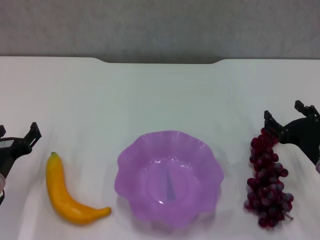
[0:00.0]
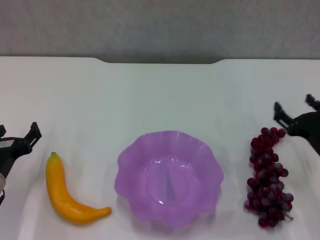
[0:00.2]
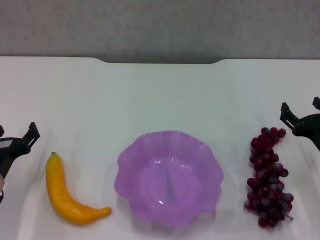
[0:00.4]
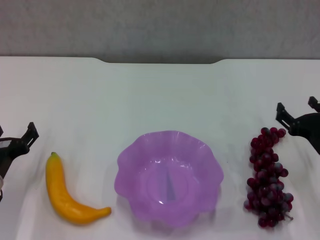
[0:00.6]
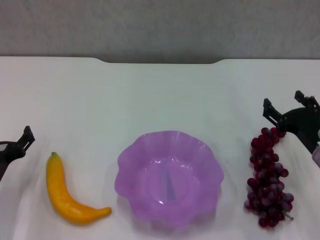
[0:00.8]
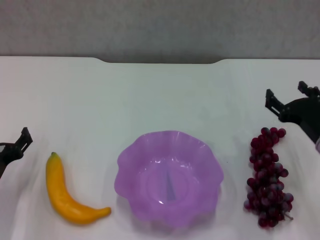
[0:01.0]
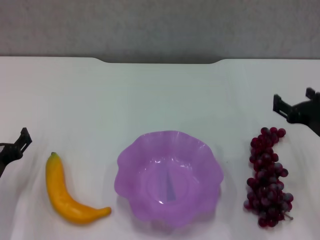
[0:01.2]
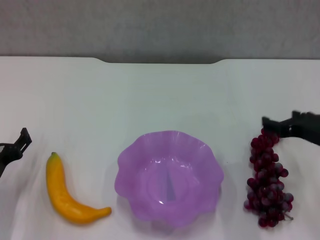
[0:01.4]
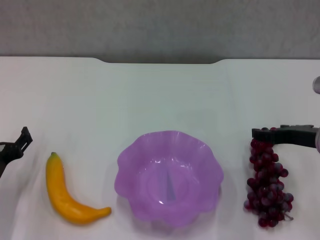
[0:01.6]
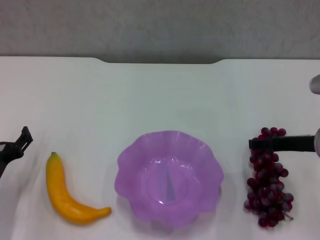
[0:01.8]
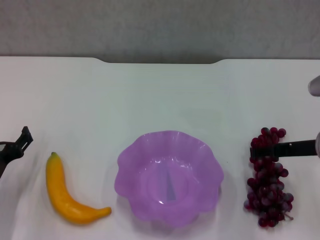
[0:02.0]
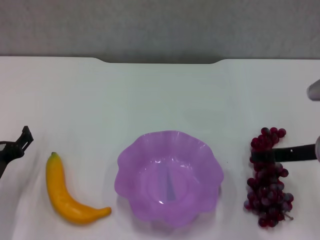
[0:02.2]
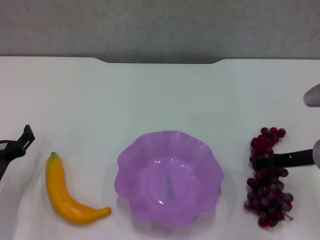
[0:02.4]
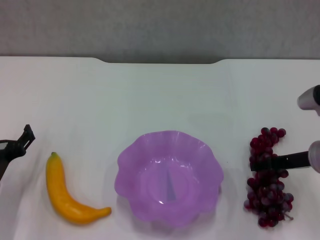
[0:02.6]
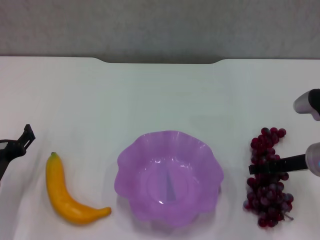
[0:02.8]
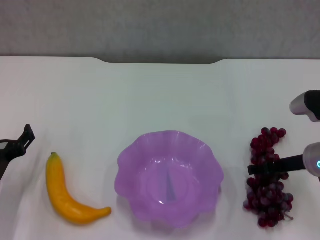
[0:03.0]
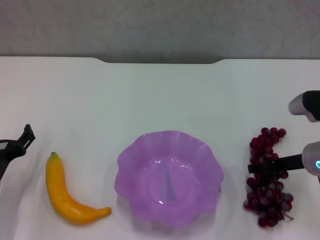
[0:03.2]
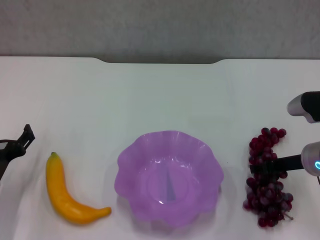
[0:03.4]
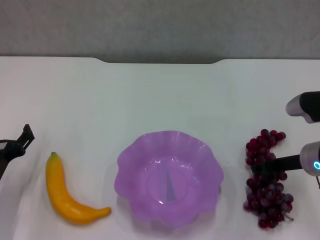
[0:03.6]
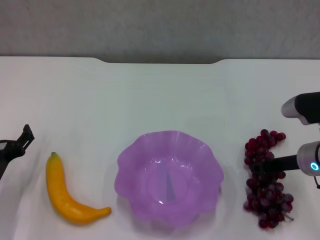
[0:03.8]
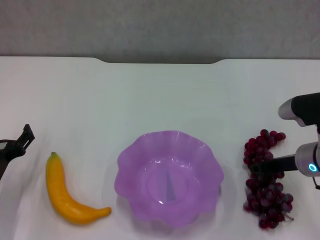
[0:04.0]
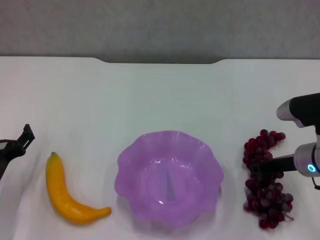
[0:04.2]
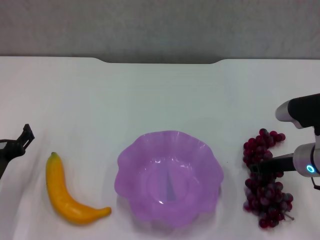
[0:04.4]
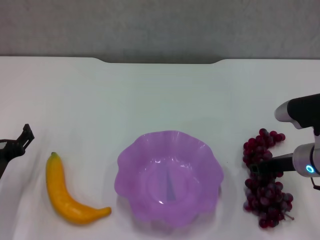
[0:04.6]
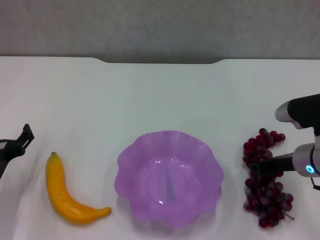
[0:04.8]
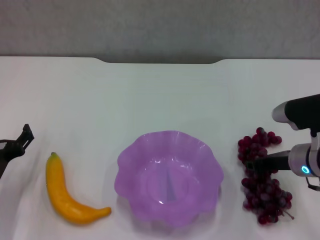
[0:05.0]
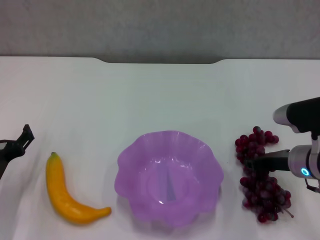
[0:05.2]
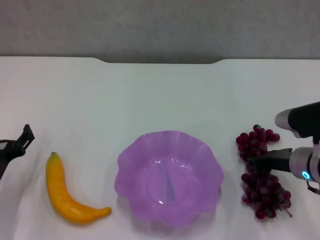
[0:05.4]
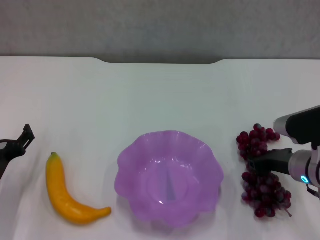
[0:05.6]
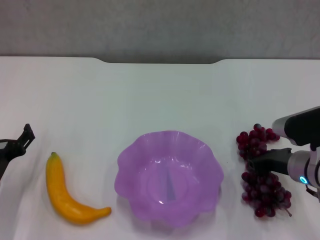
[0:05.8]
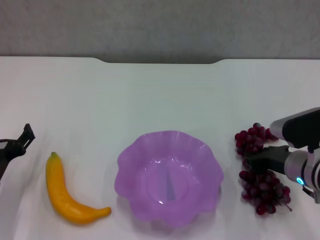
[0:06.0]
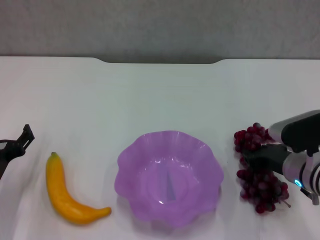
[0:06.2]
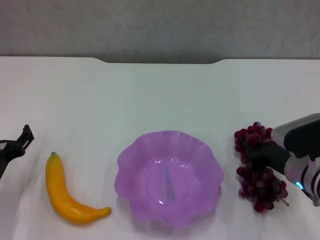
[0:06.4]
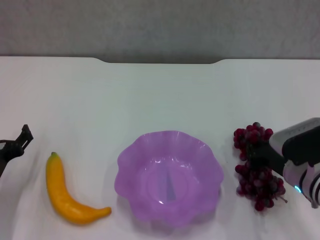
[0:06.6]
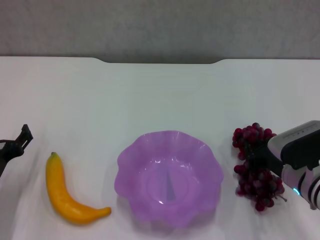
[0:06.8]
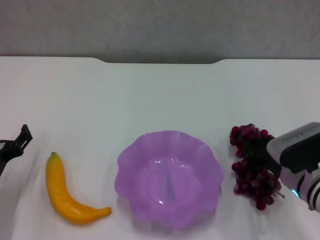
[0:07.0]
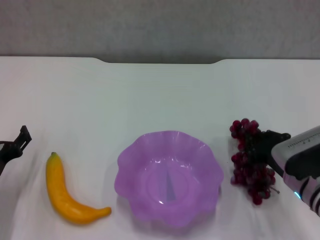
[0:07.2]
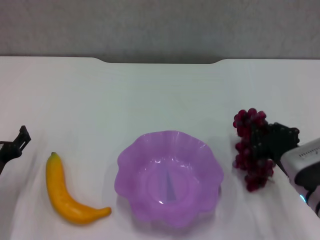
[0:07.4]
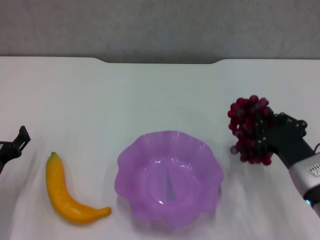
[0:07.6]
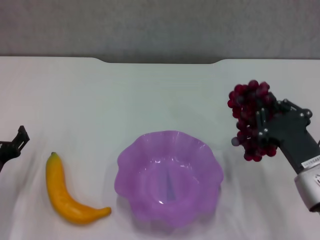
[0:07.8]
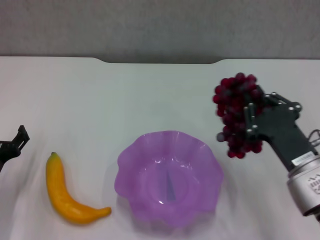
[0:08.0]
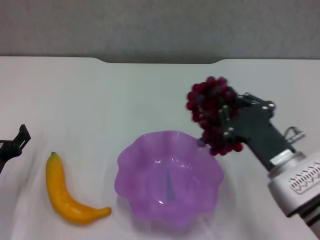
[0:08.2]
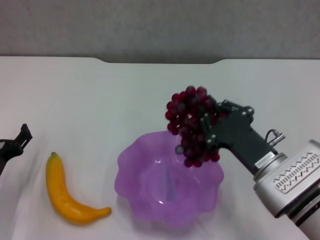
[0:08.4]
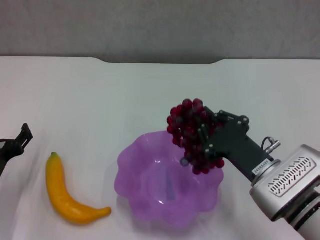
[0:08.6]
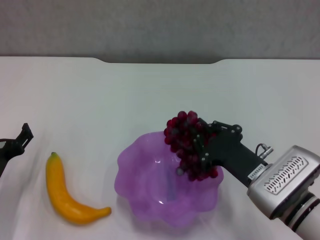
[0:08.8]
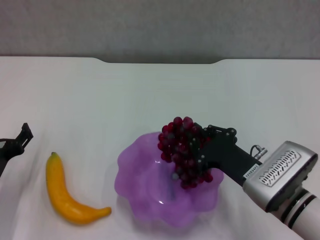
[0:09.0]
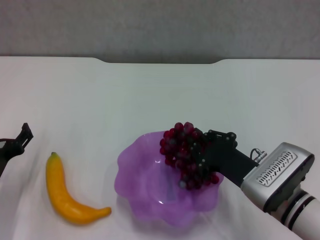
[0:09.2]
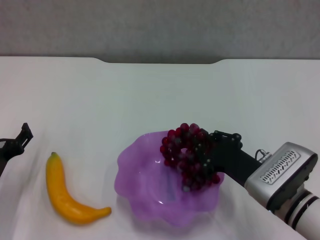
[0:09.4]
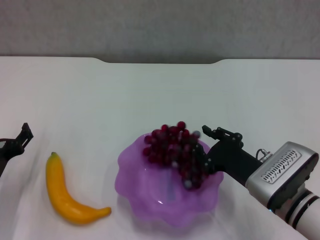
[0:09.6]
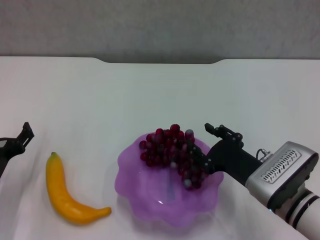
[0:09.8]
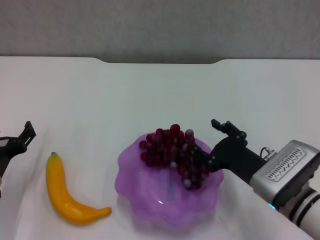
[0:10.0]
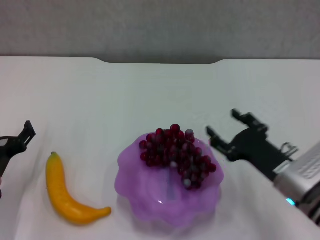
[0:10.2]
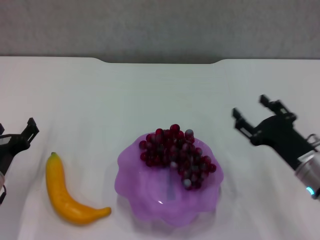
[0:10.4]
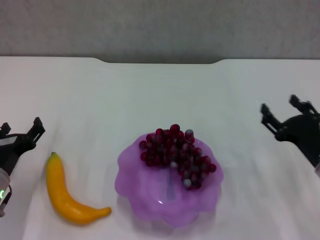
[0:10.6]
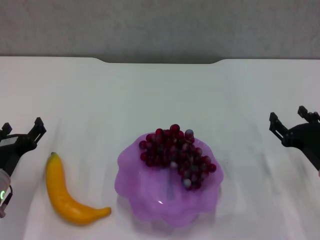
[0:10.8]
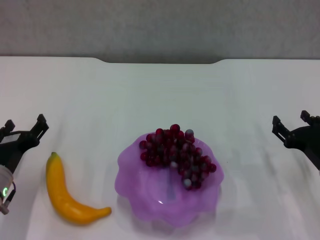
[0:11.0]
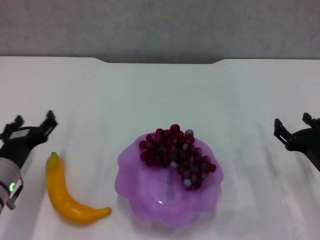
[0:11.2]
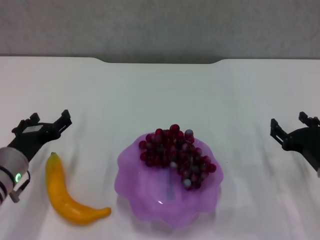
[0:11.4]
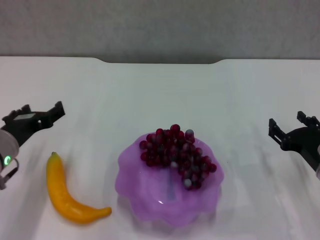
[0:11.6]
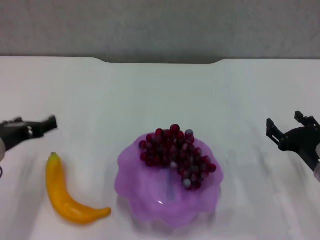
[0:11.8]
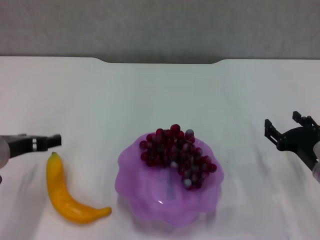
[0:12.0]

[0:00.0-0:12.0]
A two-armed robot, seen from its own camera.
Step, 0:00.0 to 0:04.2: Grasp the grape with right gripper.
Step, 0:04.4 to 0:10.0: Place the grape in the purple plate with right gripper.
0:00.0 to 0:01.6: The right gripper moves upward, approximately 10 cm.
0:01.6 to 0:03.0: The grippers make only small movements.
0:03.0 to 0:04.4: The right gripper closes up.
0:04.4 to 0:06.0: The grippers make only small movements.
0:06.0 to 0:07.6: The right gripper travels backward by approximately 5 cm.
0:07.6 to 0:09.0: The right gripper shifts some 5 cm to the left.
0:09.0 to 0:10.4: The right gripper shifts some 5 cm to the right, and opens its fingers.
0:10.4 to 0:12.0: The left gripper heads upward, covering about 10 cm.

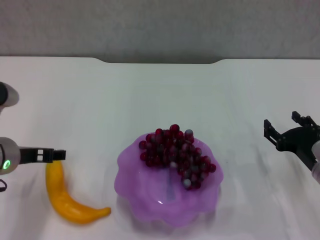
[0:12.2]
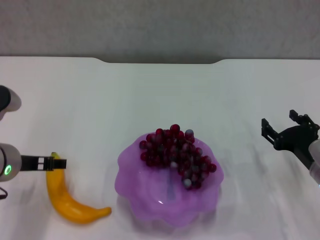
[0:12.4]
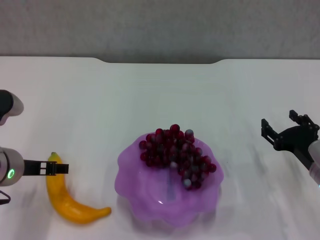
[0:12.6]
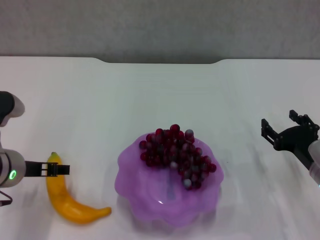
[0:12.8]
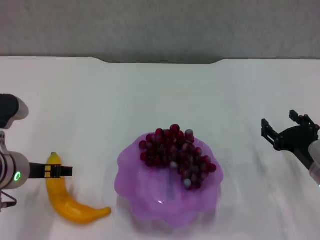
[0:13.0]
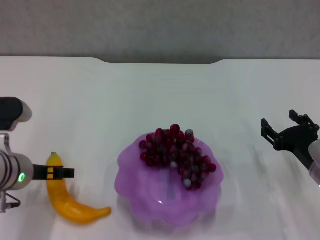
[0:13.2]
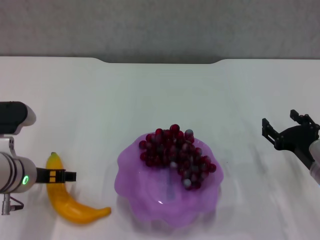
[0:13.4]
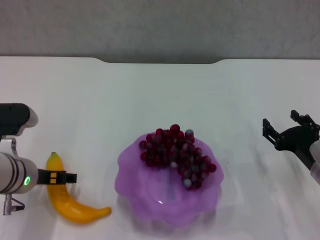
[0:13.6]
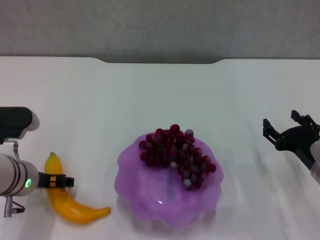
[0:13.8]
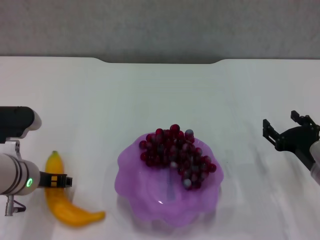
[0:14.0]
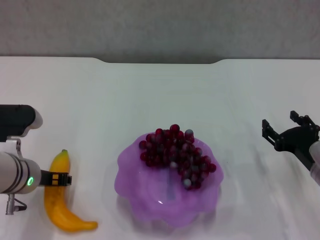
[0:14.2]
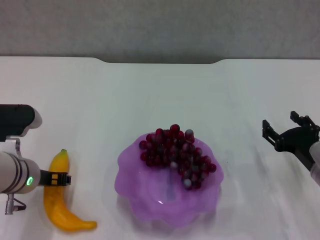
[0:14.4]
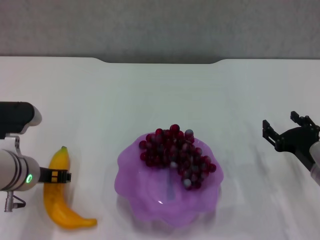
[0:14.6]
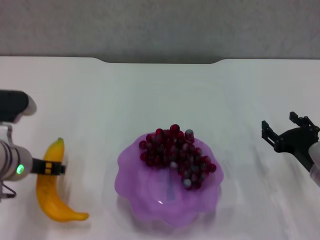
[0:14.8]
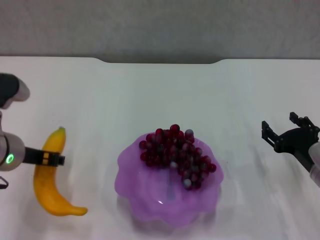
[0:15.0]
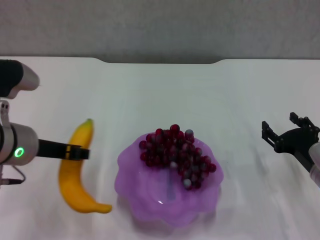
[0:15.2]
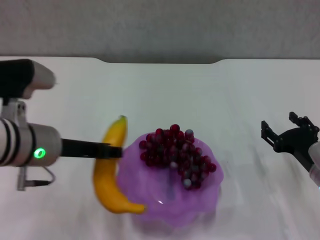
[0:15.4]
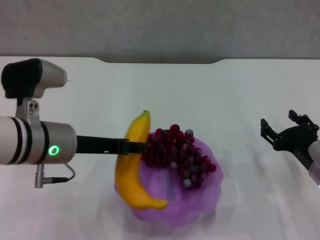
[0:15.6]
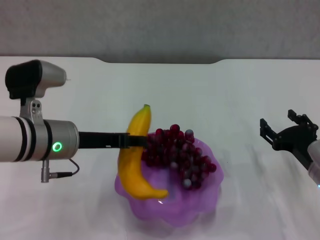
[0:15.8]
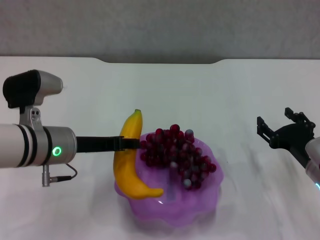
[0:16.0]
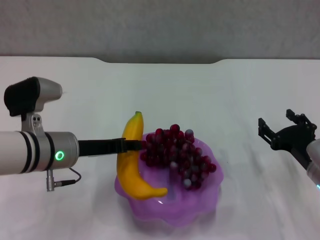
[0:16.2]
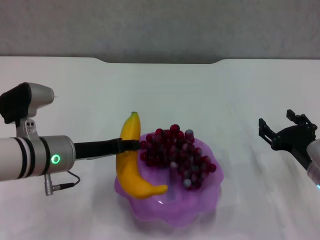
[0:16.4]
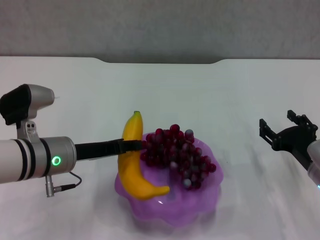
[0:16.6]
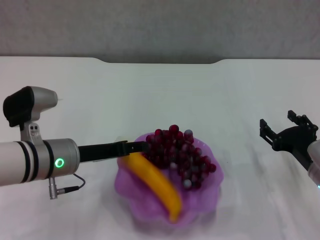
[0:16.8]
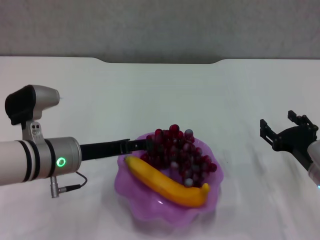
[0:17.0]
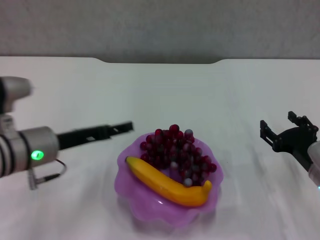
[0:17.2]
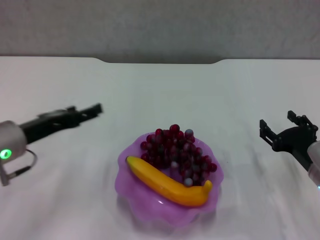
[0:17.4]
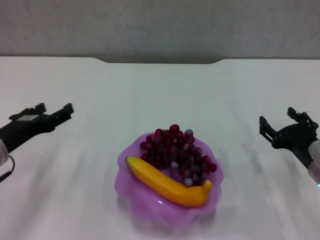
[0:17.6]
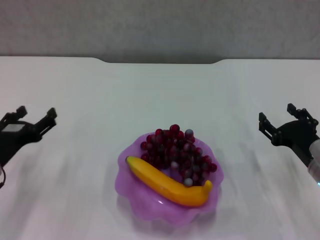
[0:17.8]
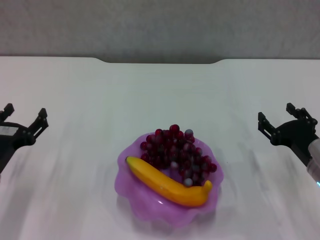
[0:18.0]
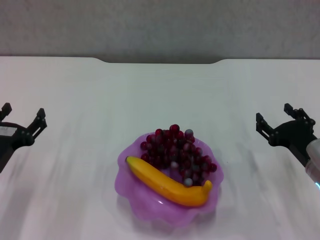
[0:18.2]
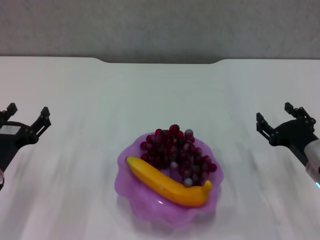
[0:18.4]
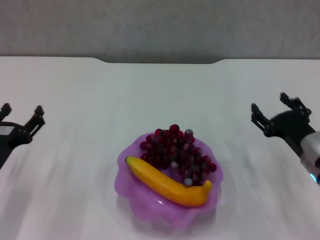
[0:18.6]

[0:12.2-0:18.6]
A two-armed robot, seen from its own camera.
Step, 0:12.2 to 0:14.2: Grasp the banana with left gripper.
Step, 0:14.4 to 0:17.0: Place the banana in the purple plate with left gripper.
0:12.2 to 0:13.8: The left gripper moves about 5 cm.
0:13.8 to 0:15.4: The left gripper heads upward, covering roughly 10 cm, and closes.
0:15.4 to 0:17.0: The left gripper shifts about 5 cm downward, and opens its fingers.
0:17.0 to 0:18.6: The left gripper is displaced to the left and downward by approximately 10 cm.

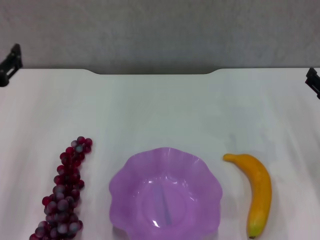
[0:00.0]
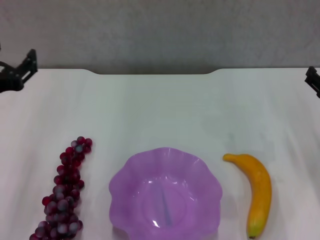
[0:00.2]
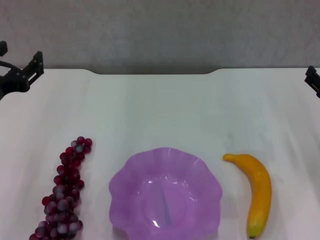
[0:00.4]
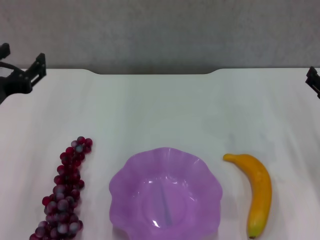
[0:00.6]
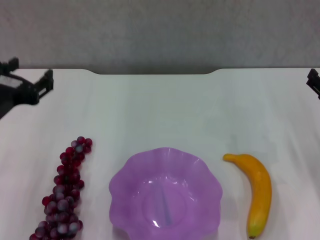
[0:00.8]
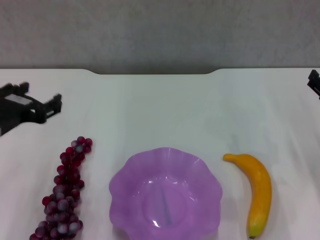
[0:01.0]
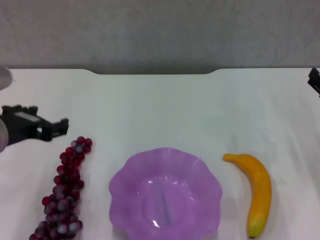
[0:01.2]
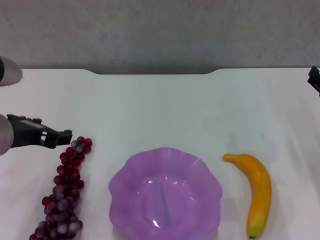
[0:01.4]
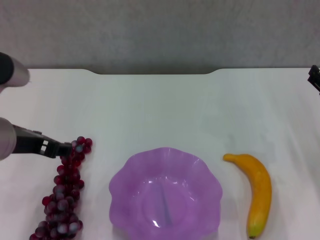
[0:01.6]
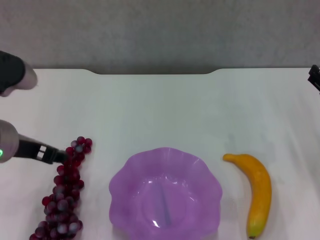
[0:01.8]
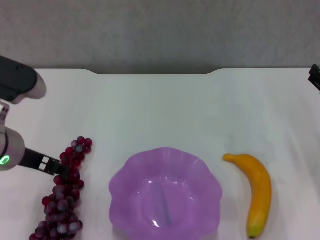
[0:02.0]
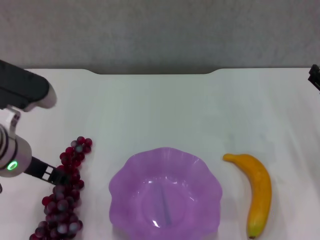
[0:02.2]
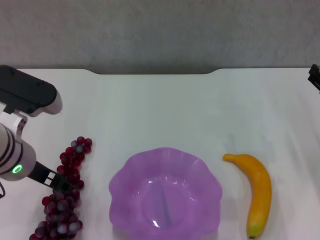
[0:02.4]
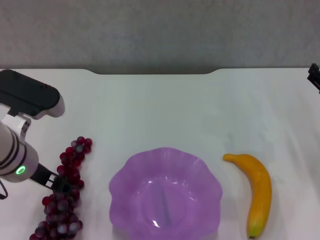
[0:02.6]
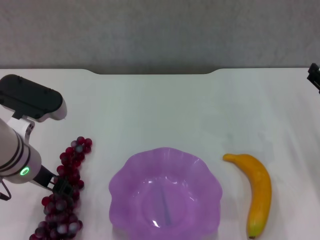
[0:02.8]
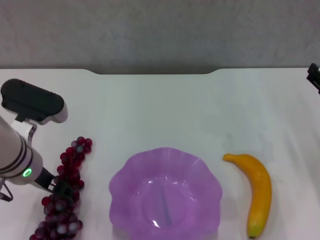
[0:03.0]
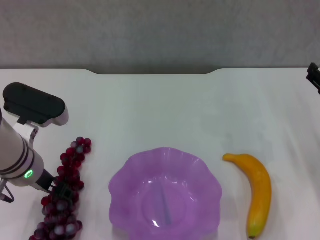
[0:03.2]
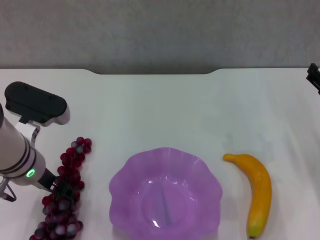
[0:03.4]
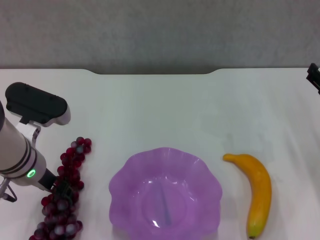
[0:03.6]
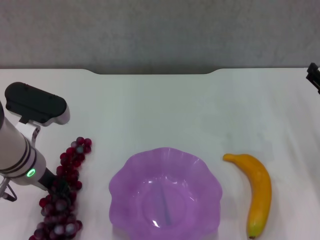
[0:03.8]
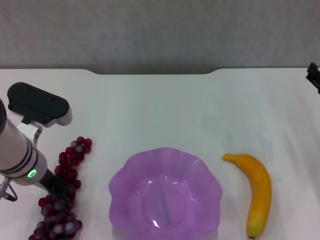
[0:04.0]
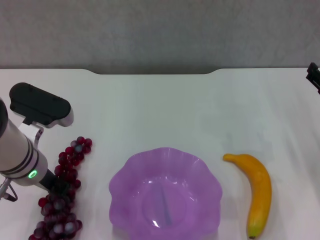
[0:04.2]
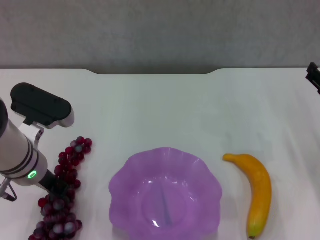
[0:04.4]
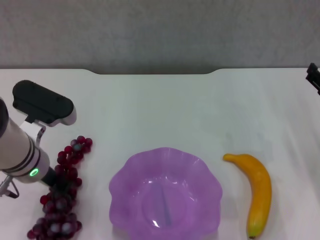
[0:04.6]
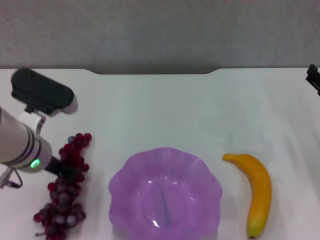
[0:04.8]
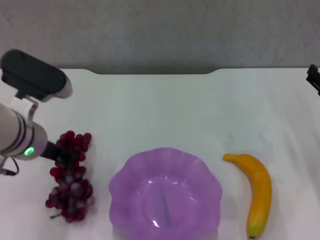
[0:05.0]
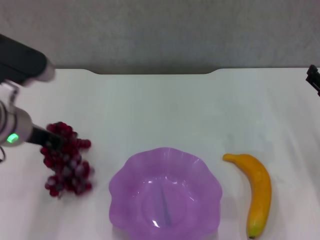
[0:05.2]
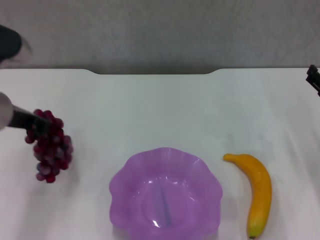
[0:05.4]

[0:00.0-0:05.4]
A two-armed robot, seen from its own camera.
Step, 0:00.0 to 0:04.4: Grasp the grape with left gripper.
0:00.0 to 0:01.4: The left gripper goes approximately 5 cm to the right.
0:01.4 to 0:02.8: The left gripper ends up approximately 5 cm from where it was.
0:02.8 to 0:04.0: The left gripper closes.
0:04.0 to 0:05.4: The left gripper moves upward, some 10 cm, and closes.
